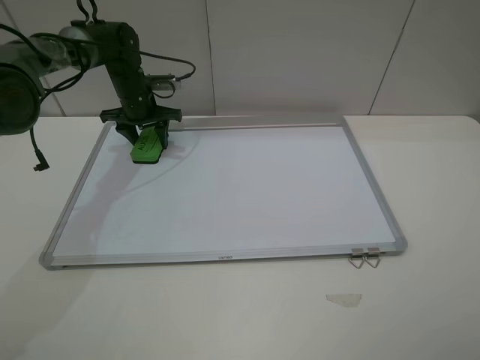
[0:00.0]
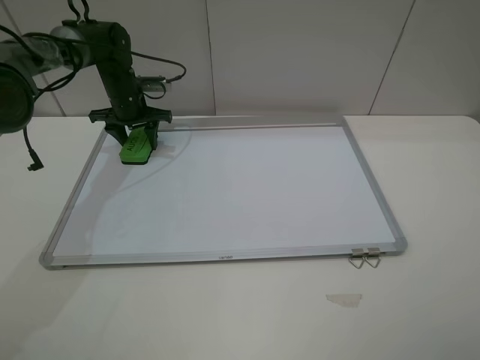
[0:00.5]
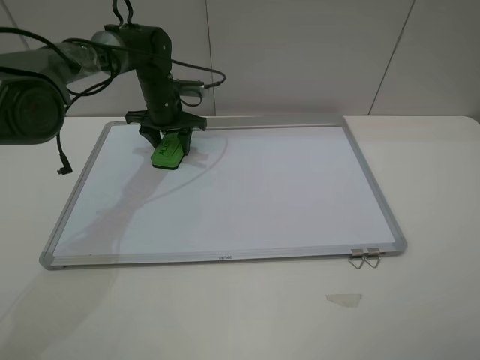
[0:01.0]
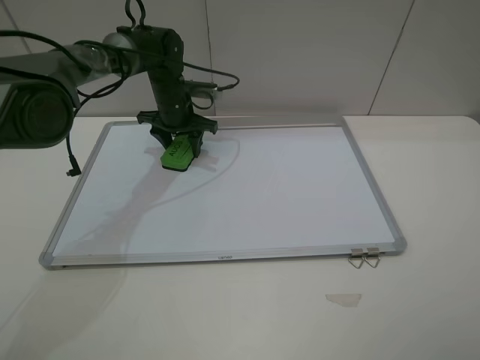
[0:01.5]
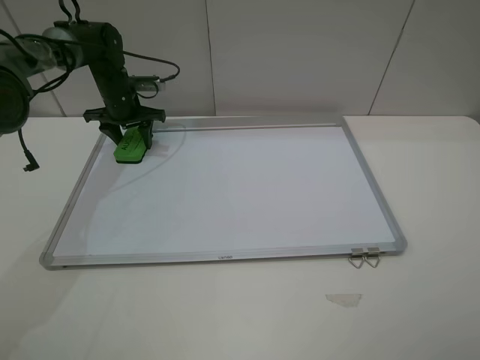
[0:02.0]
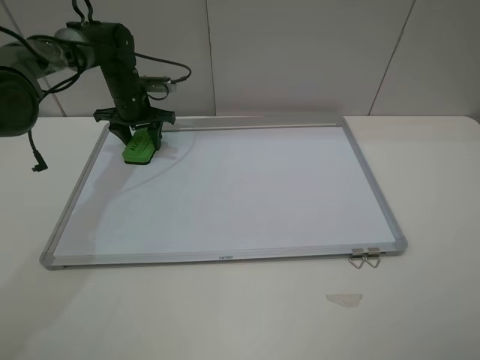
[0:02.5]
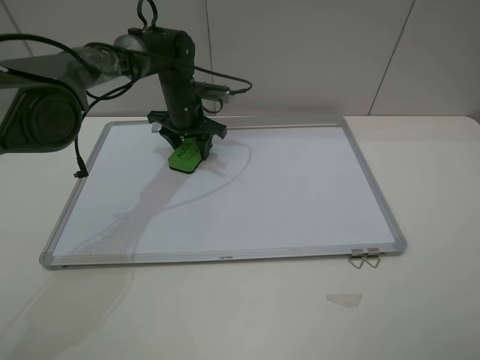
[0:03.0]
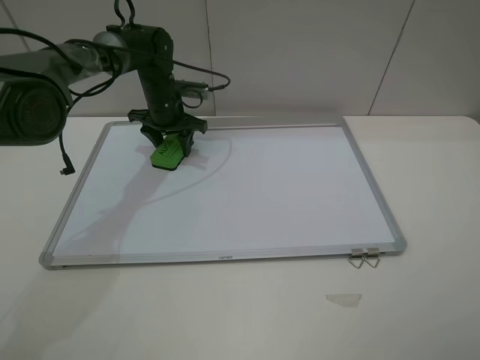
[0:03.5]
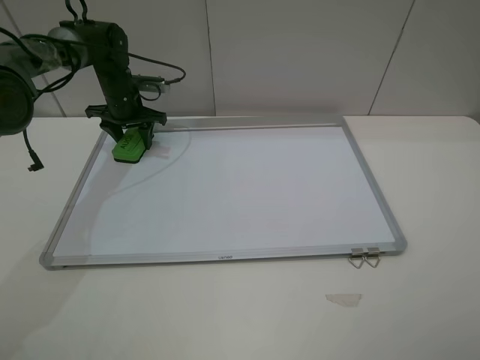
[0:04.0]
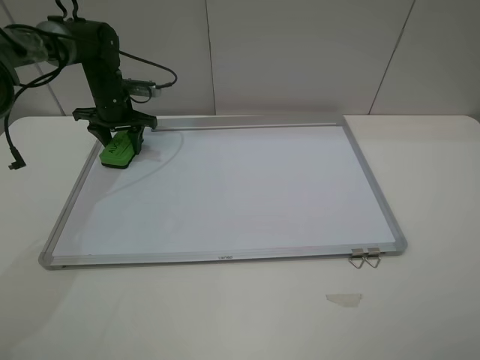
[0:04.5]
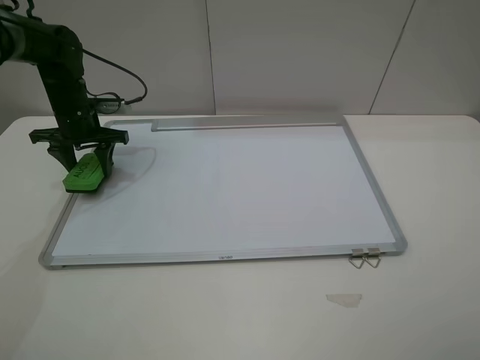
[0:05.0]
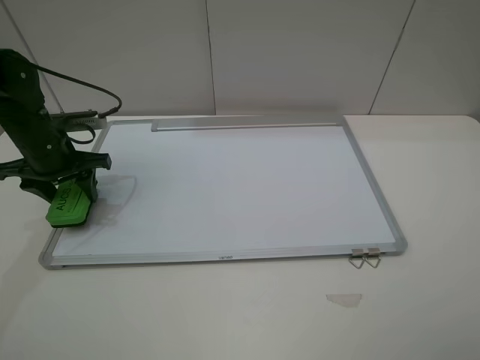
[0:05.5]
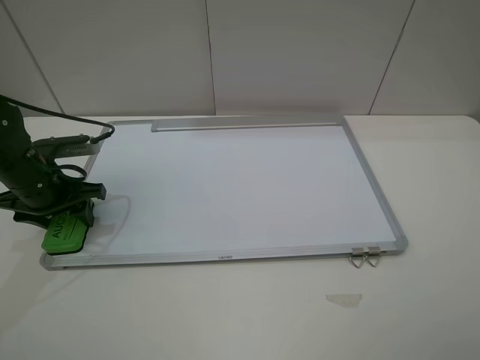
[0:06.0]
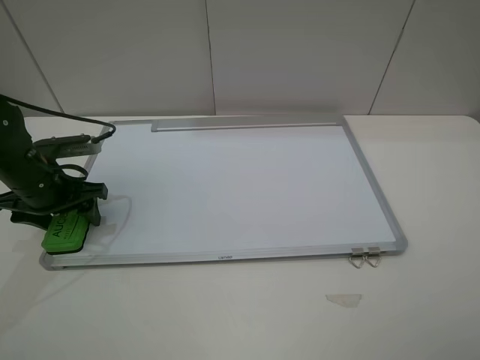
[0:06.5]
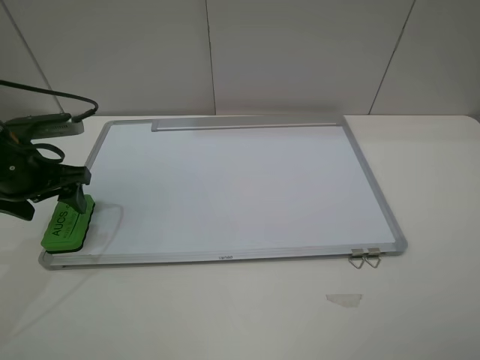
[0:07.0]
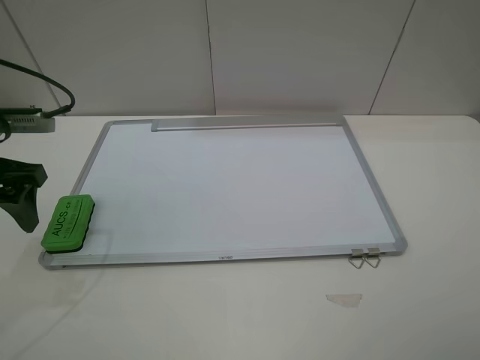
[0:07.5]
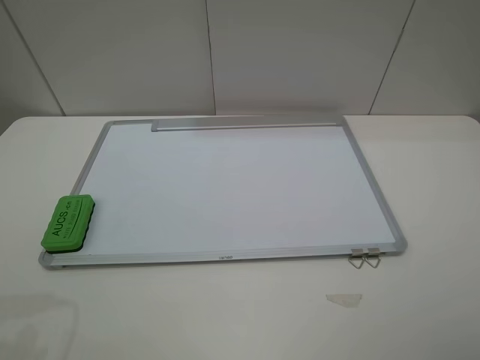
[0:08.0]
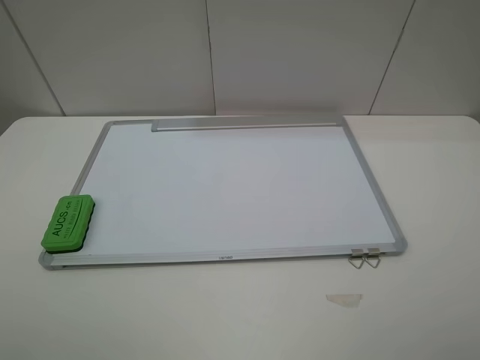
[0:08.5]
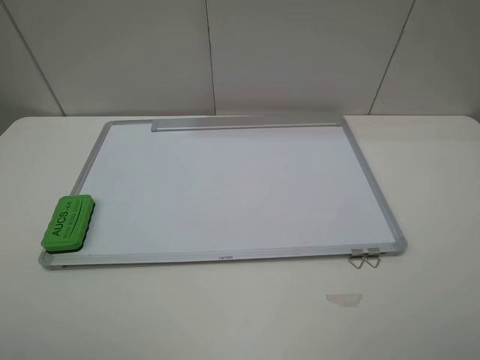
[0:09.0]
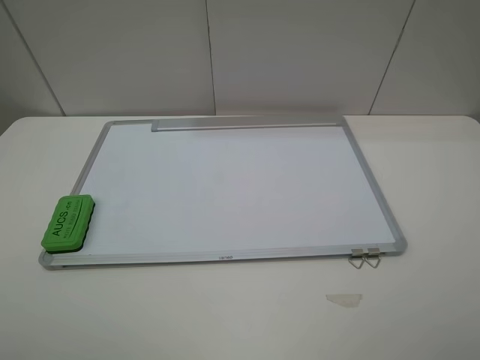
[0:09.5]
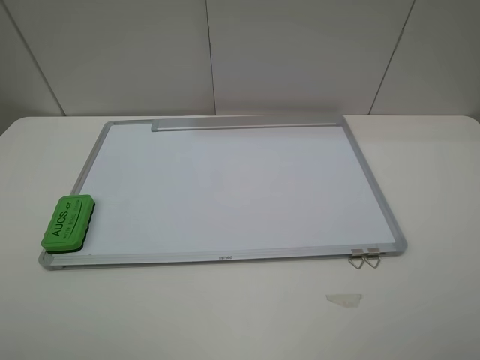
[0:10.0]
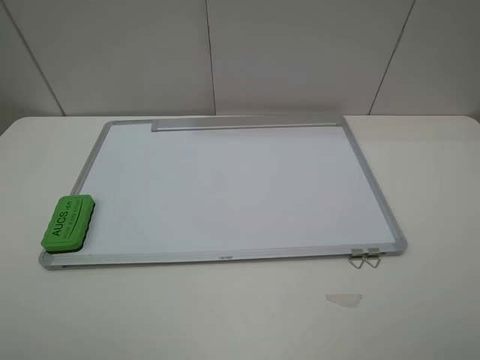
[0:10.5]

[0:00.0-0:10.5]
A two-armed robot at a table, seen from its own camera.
Step, 0:00.0 to 0:04.0: Grasp the eraser and wipe the blackboard with the left gripper.
Step, 0:04.5 to 0:06.5: Place the eraser with the left gripper.
0:00.0 to 0:02.0: The left gripper goes to the right and returns, about 10 cm each way.
0:02.0 to 0:04.0: The left gripper reaches some 15 cm to the right, then returns.
0:04.0 to 0:06.5: The left gripper shifts roughly 25 cm backward, and opens its fingers.
0:06.5 to 0:08.5: The left gripper goes about 30 cm backward and upward.
